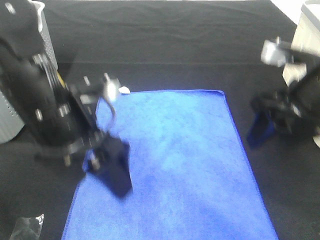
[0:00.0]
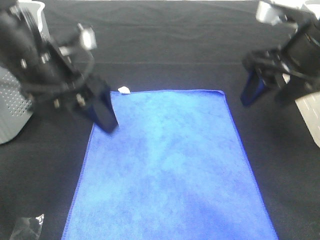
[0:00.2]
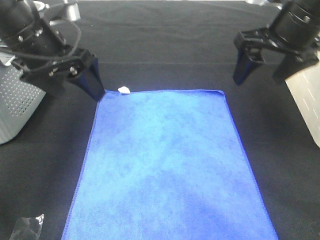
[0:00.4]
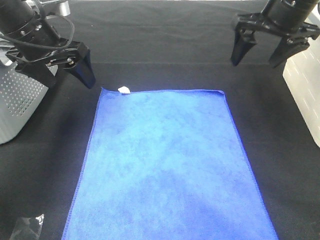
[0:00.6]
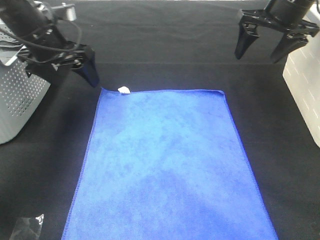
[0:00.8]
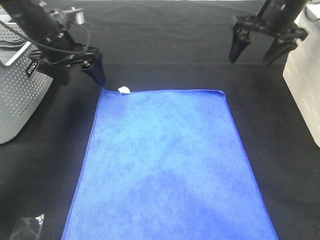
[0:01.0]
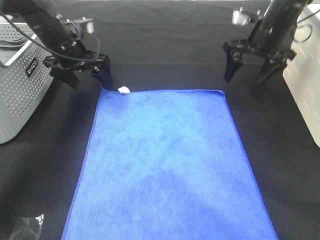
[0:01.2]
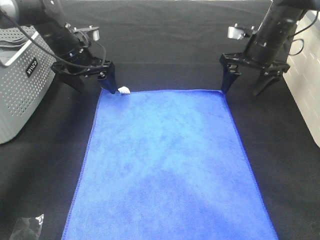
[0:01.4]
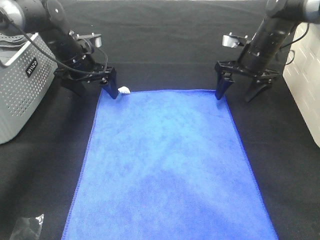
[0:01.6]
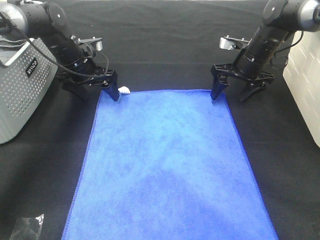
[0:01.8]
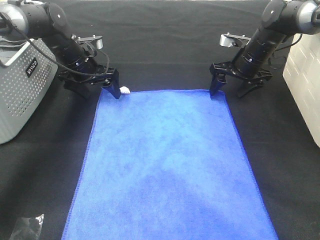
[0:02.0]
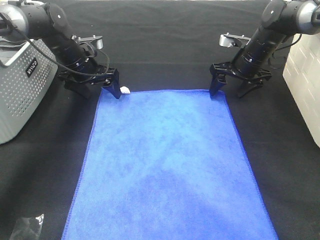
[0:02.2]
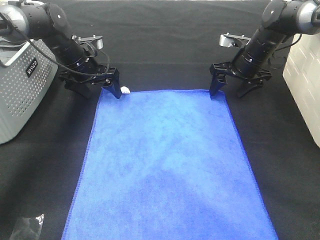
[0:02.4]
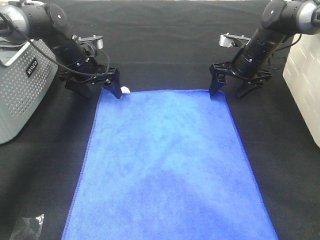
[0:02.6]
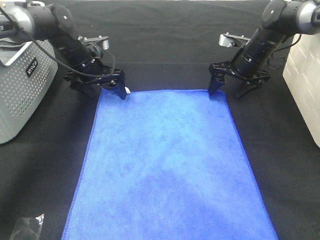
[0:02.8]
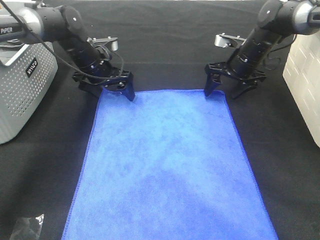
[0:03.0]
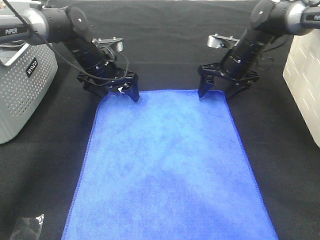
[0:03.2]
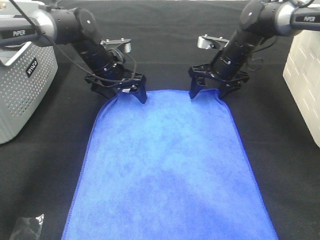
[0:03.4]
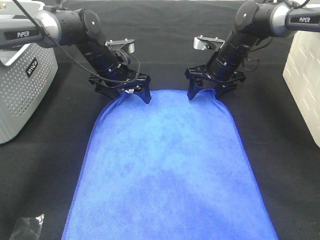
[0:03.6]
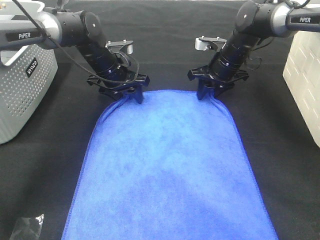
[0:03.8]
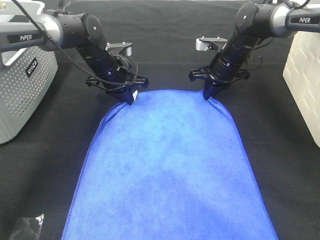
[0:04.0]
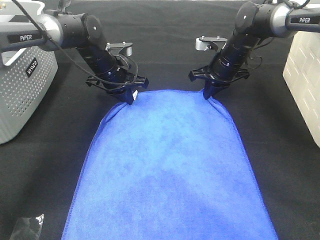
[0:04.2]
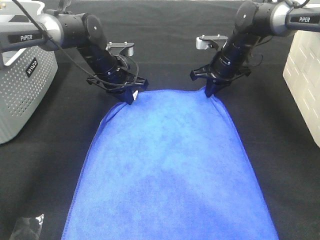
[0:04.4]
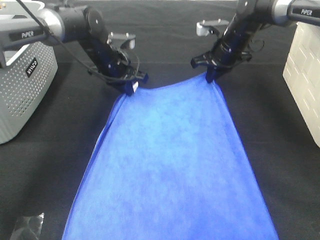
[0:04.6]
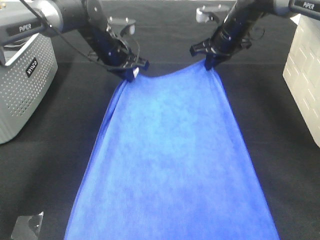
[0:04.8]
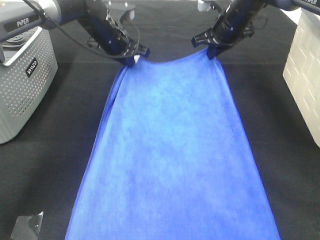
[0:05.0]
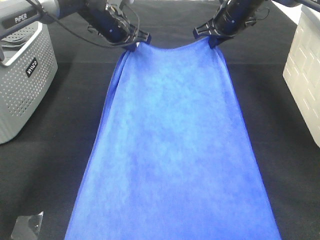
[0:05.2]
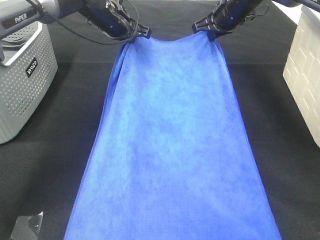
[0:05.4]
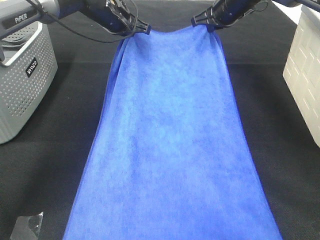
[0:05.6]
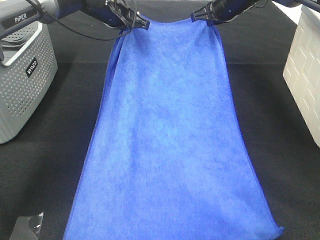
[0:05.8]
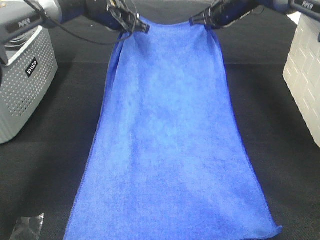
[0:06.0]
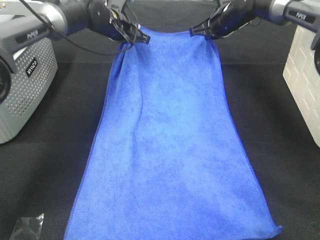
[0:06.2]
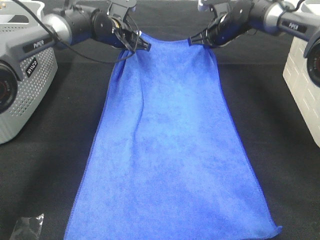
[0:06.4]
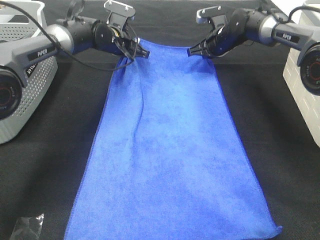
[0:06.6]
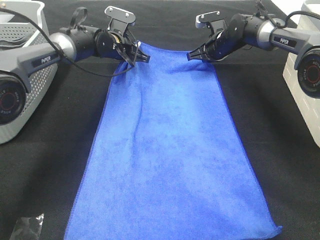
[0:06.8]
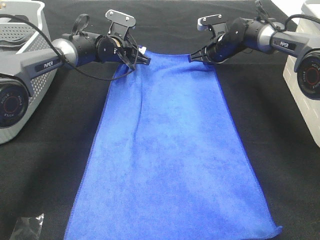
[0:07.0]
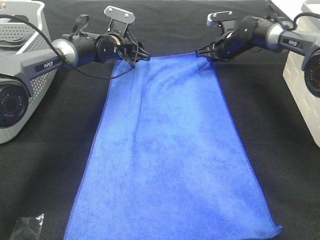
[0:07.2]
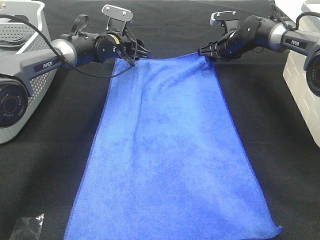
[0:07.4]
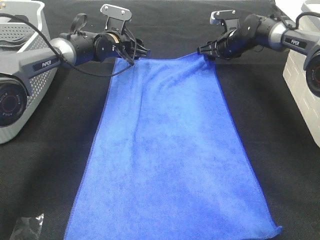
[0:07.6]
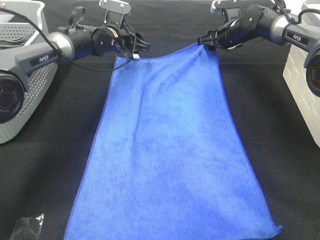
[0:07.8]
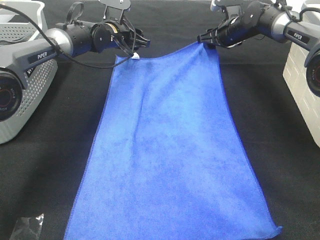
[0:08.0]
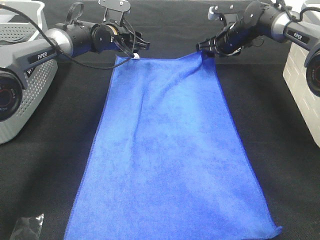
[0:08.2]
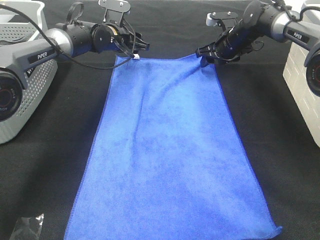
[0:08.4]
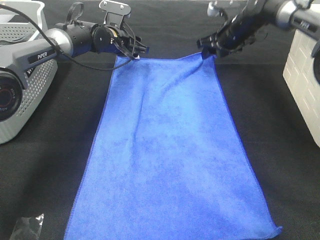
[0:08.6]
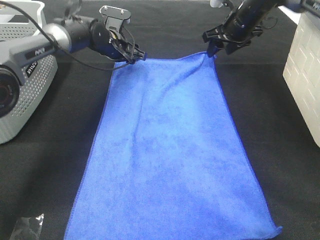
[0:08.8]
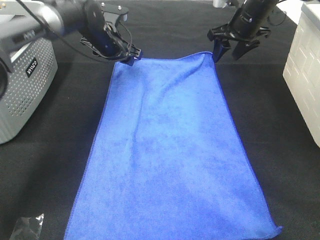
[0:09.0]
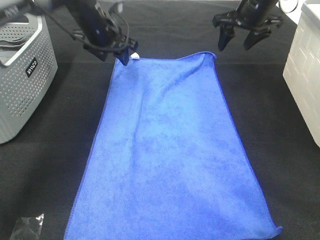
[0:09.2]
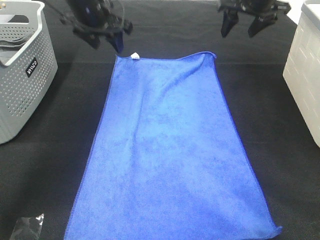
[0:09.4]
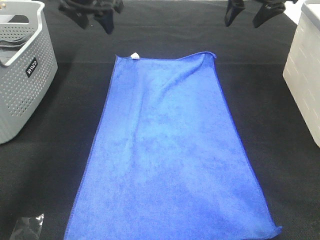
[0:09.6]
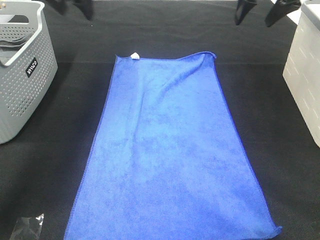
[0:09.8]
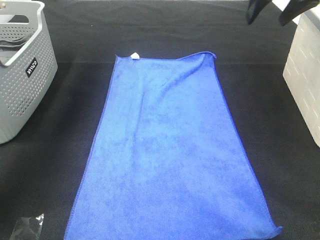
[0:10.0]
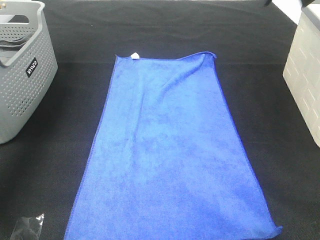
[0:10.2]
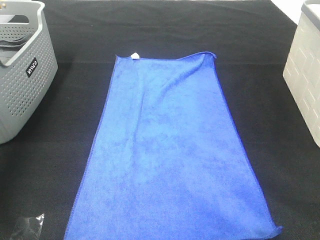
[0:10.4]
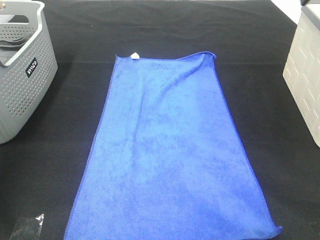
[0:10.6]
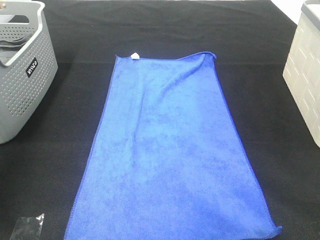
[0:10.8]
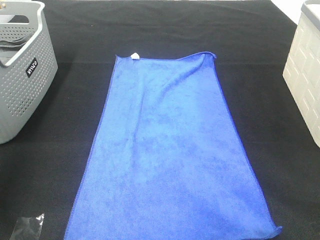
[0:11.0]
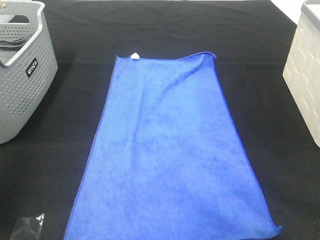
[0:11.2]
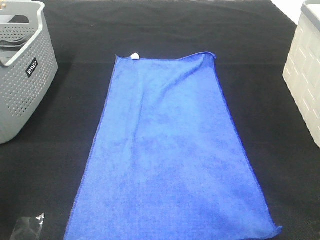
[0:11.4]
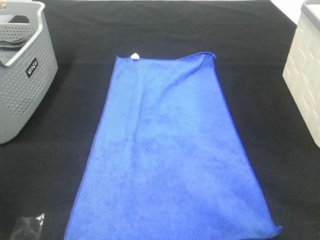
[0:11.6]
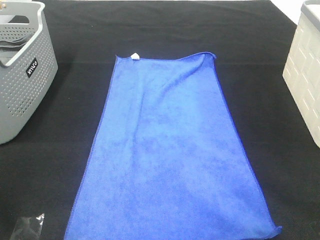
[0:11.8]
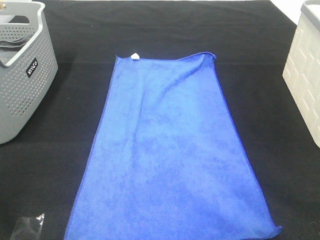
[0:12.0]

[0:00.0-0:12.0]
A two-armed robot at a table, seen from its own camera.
Task of the whole recording: Remove the towel and place it.
Step, 0:00.0 to 0:02.6: Right hand:adjust the blue towel.
0:00.0 to 0:01.6: The left gripper goes roughly 25 cm forward. Meanwhile the right gripper goes about 25 cm forward and downward.
0:01.6 to 0:03.0: The grippers move only a little.
0:03.0 to 0:04.4: The right gripper closes up. Meanwhile the left gripper closes up.
0:04.4 to 0:06.0: The two grippers go roughly 10 cm upward and forward.
0:06.0 to 0:07.6: Both grippers move downward, approximately 10 cm. The left gripper opens its fingers; the right gripper opens its fingers.
0:07.6 to 0:09.0: The left gripper ends up approximately 5 cm from where it was, while the right gripper is displaced upward and backward by about 10 cm.
0:09.0 to 0:10.4: The right gripper heads upward and backward, covering about 25 cm; the left gripper is displaced upward, to the left and backward by about 40 cm.
0:10.4 to 0:12.0: Both grippers move backward, approximately 35 cm.

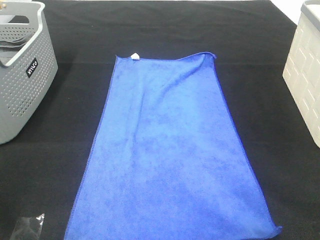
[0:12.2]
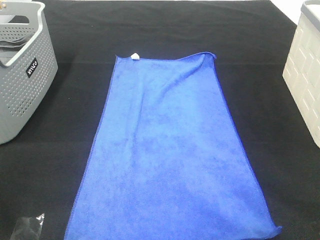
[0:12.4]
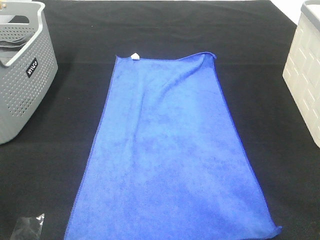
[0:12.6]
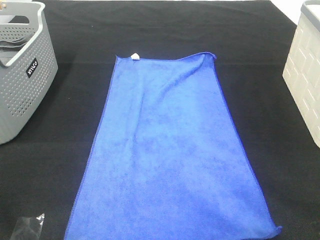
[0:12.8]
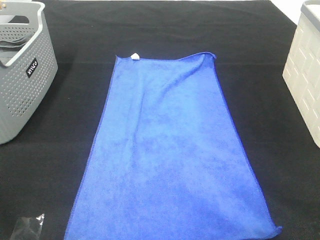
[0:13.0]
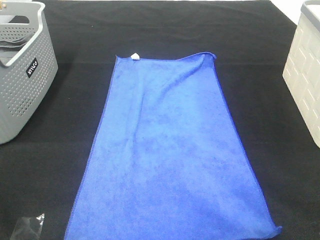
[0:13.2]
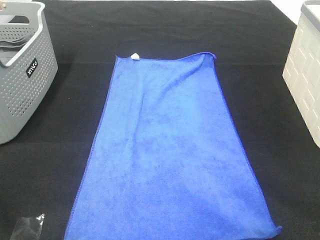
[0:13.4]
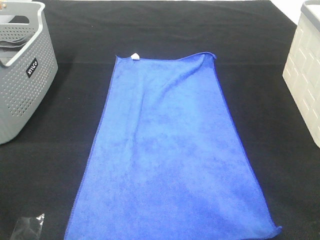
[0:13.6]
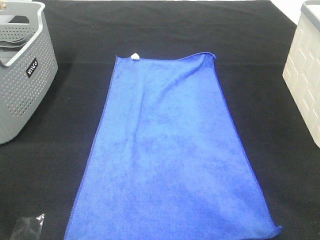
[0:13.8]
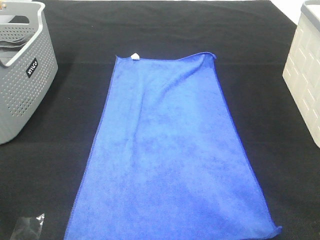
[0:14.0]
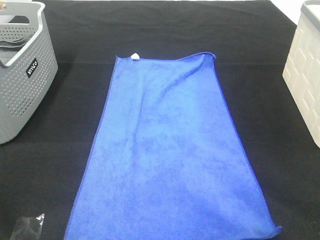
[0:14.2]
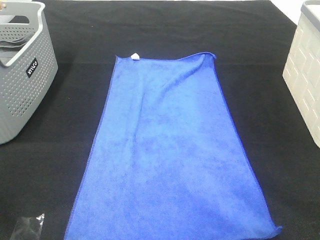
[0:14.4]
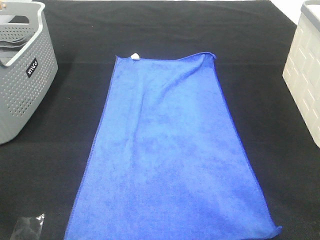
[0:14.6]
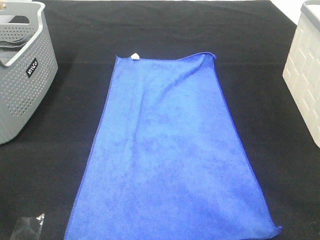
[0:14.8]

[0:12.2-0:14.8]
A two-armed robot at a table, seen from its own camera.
Task of the whole recording: Remove the towel and place it.
0:13.4 to 0:14.8: Both grippers stay put.

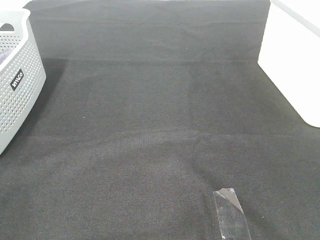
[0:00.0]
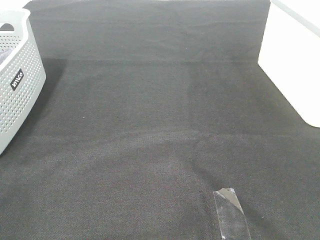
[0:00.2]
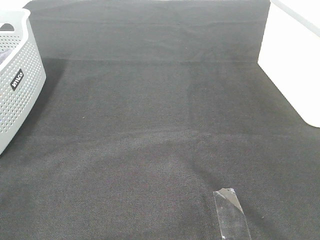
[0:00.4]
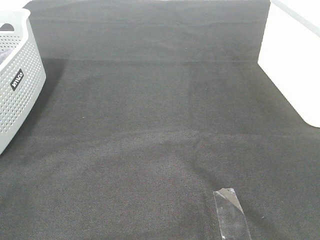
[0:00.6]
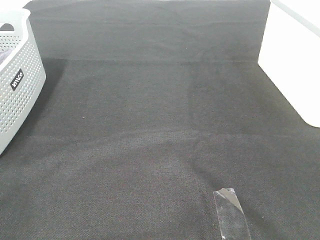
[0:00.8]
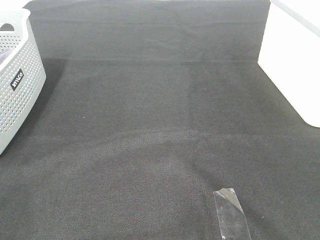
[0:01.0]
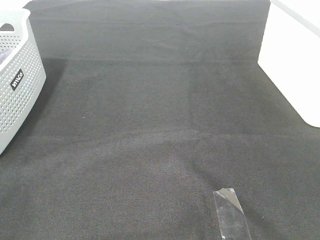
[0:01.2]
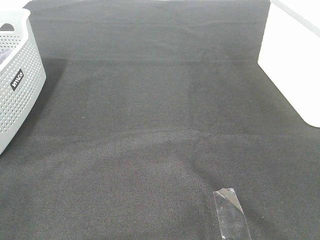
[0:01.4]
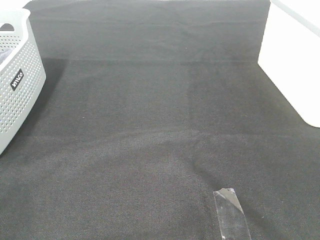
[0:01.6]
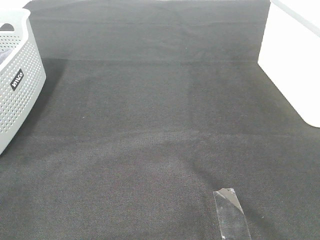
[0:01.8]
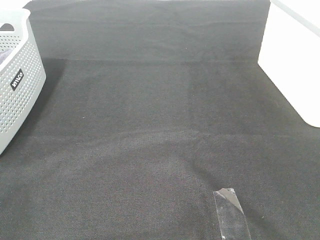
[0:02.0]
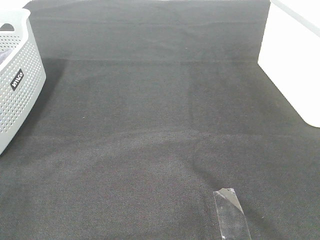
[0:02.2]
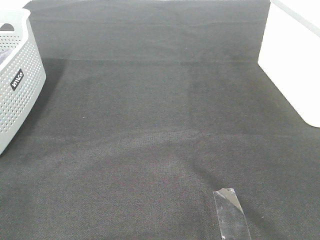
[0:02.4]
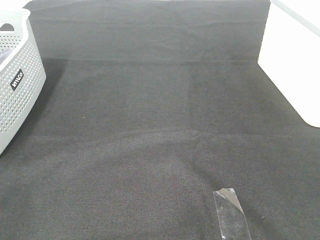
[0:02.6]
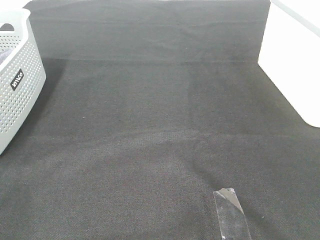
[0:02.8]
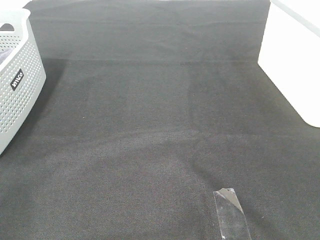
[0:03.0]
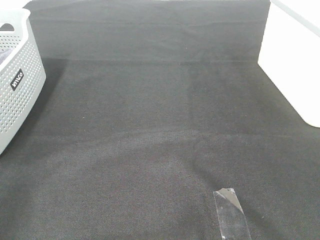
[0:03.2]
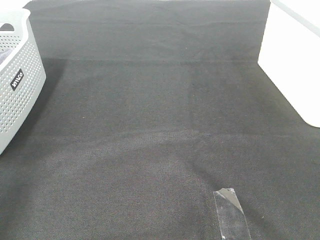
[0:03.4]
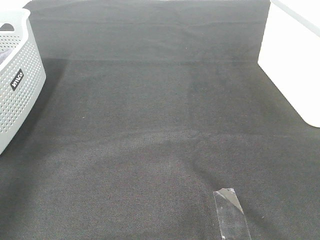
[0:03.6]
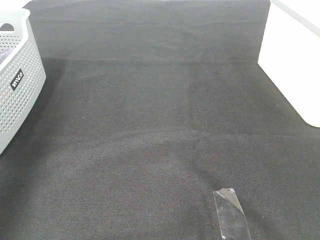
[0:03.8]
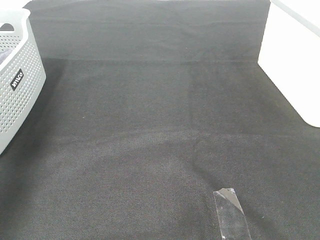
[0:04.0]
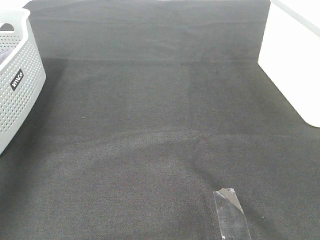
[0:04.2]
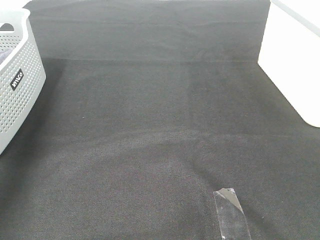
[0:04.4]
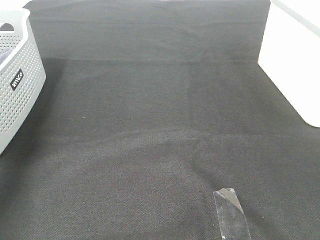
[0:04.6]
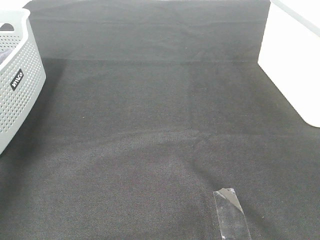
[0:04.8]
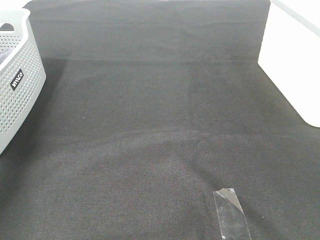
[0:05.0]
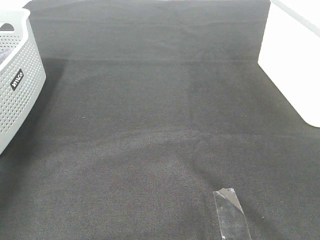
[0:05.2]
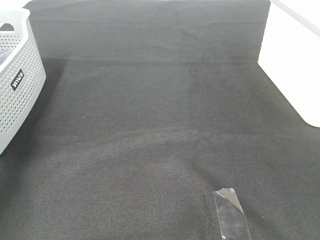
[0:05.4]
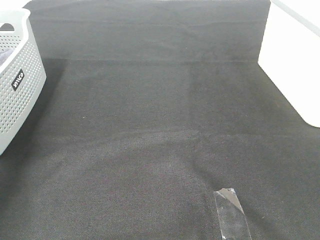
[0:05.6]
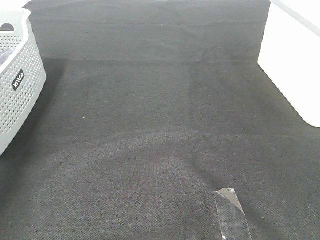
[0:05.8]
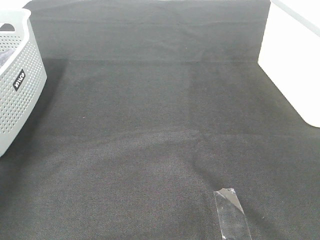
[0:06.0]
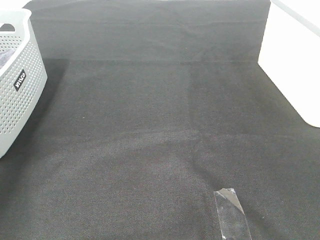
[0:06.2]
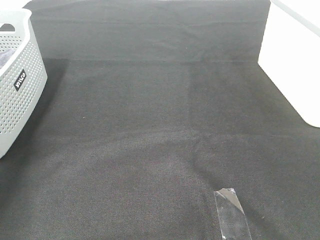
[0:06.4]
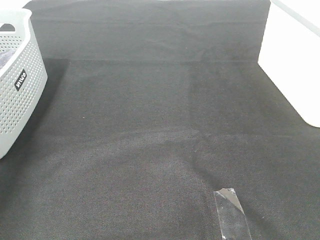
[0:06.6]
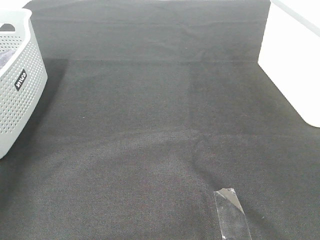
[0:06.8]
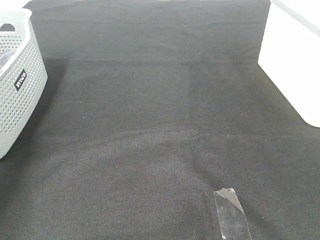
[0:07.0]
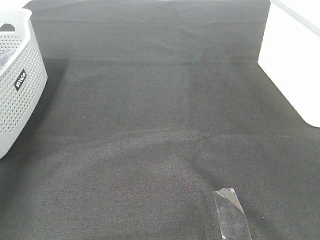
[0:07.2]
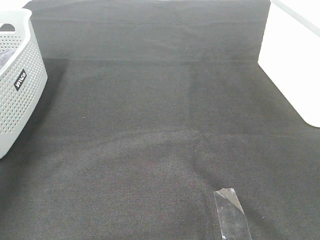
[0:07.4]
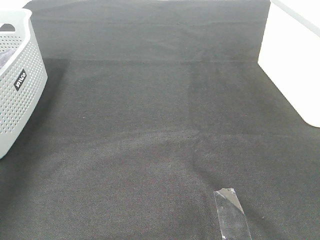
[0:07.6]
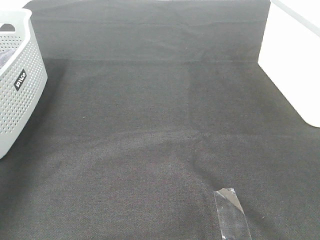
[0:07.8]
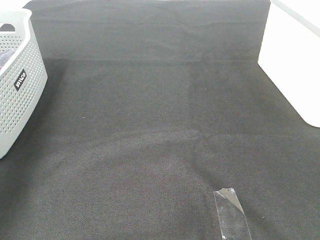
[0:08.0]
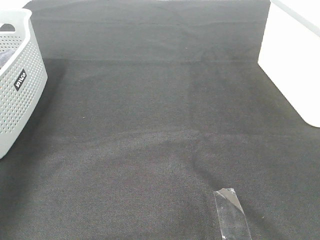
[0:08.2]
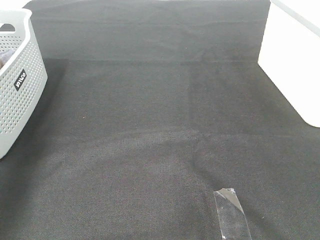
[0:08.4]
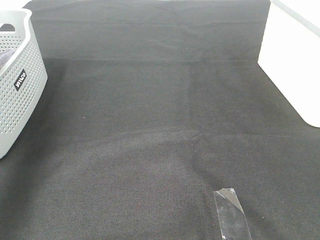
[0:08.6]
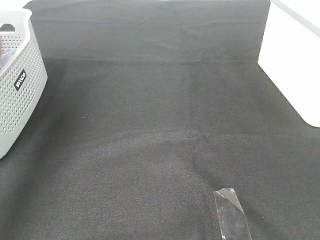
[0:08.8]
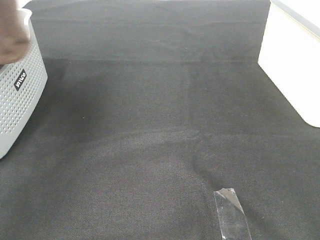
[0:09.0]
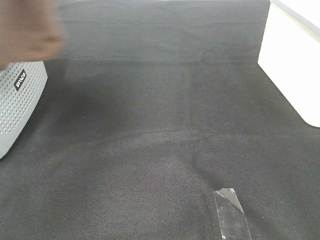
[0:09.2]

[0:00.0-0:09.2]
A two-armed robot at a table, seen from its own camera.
Task of the whole recording: Remove the towel and place it.
0:00.0 to 0:01.6: Both grippers stay about where they are.
0:03.0 to 0:04.6: The left gripper travels forward by approximately 35 cm.
0:04.6 to 0:06.2: The left gripper shifts roughly 10 cm downward, and closes its fingers.
0:07.6 to 0:09.2: The right gripper shifts some 10 cm forward, while the left gripper goes approximately 25 cm upward and to the right.
